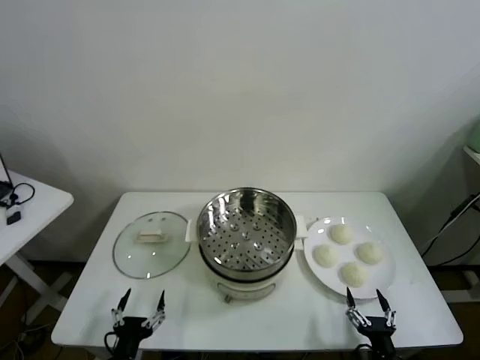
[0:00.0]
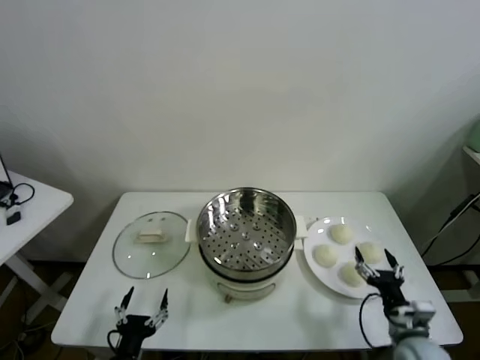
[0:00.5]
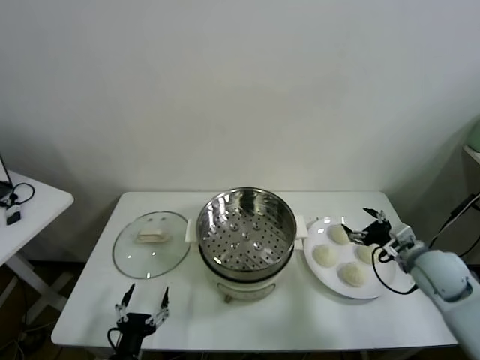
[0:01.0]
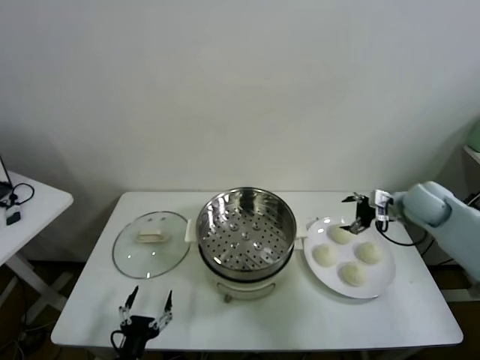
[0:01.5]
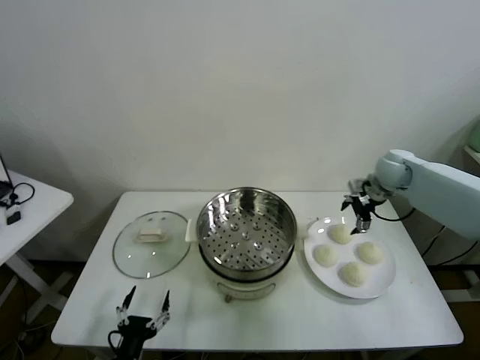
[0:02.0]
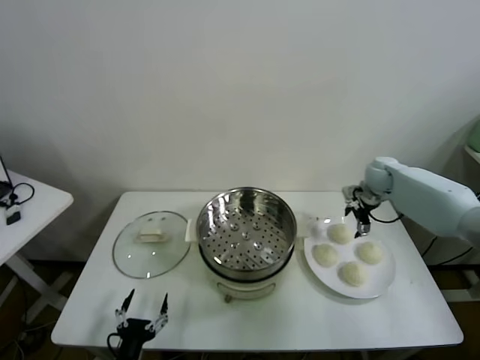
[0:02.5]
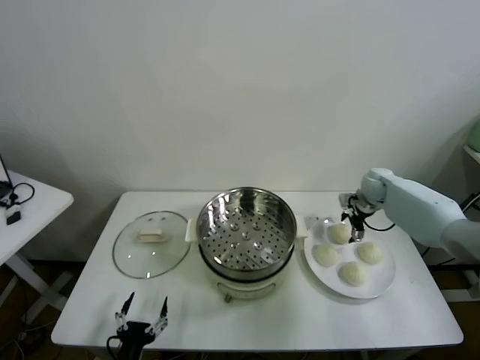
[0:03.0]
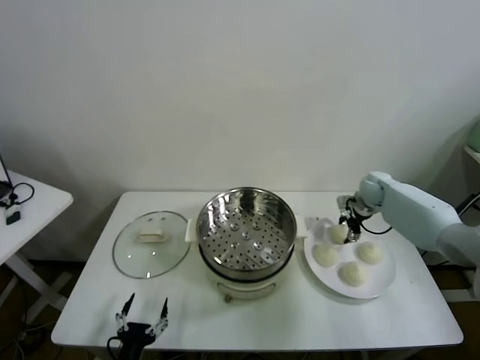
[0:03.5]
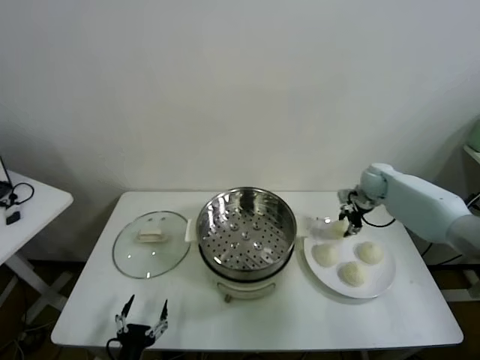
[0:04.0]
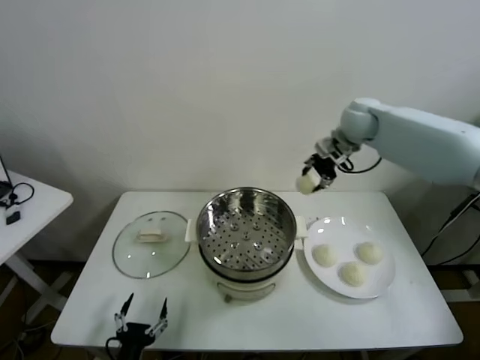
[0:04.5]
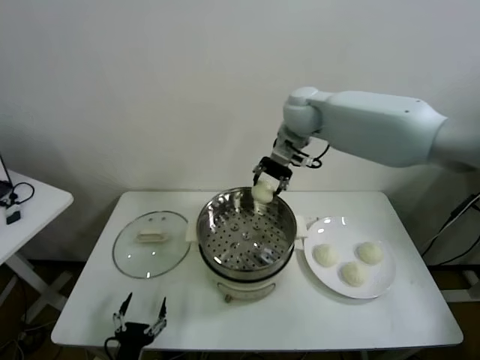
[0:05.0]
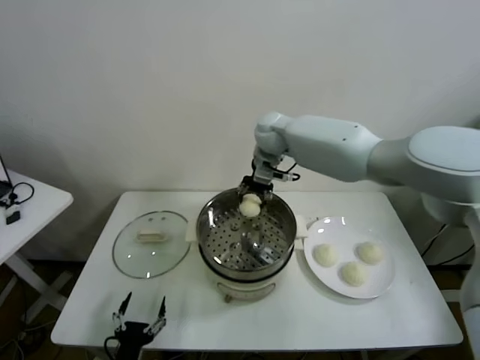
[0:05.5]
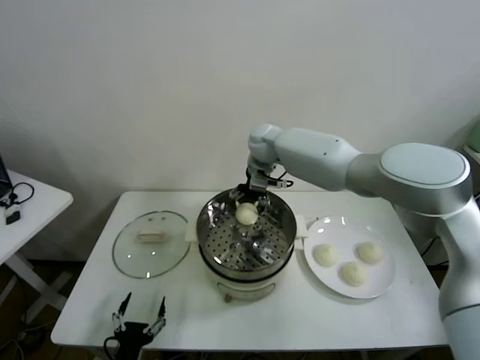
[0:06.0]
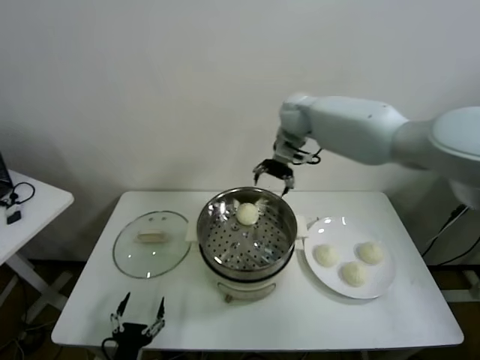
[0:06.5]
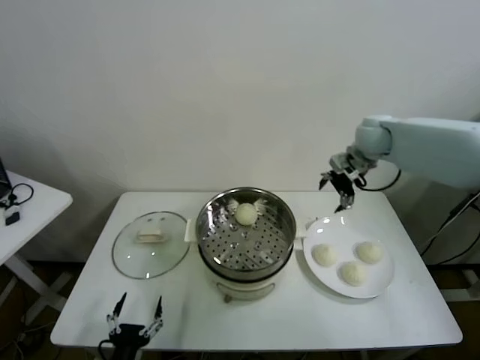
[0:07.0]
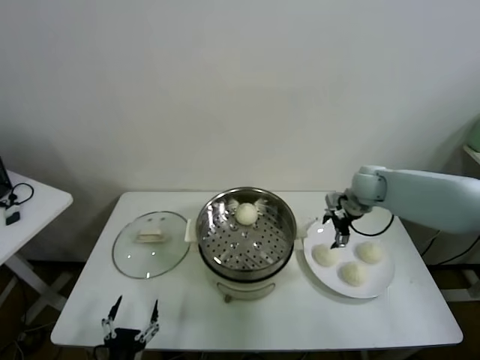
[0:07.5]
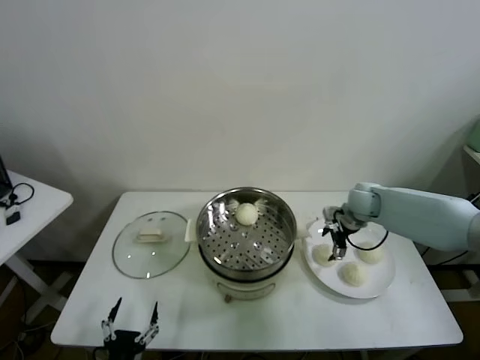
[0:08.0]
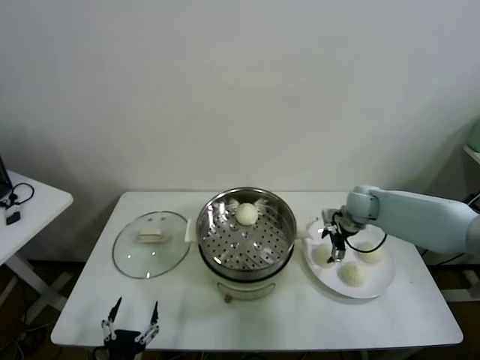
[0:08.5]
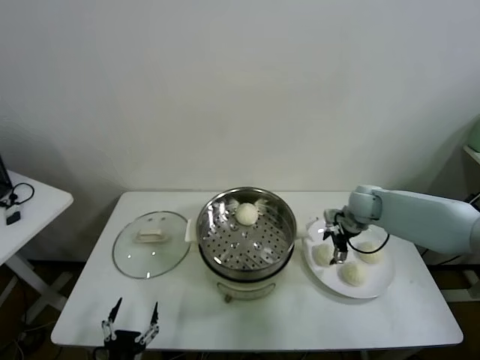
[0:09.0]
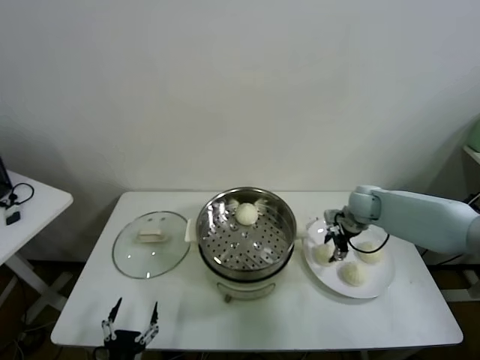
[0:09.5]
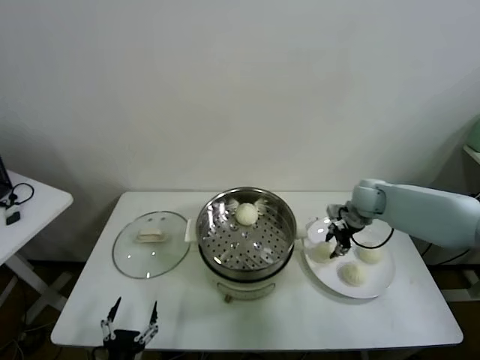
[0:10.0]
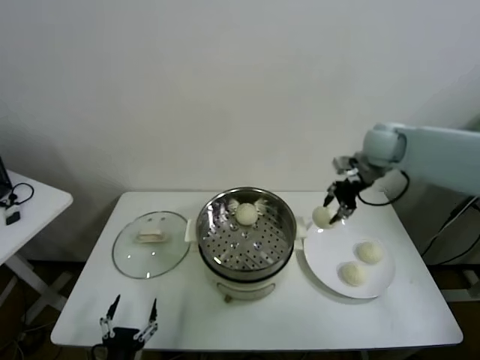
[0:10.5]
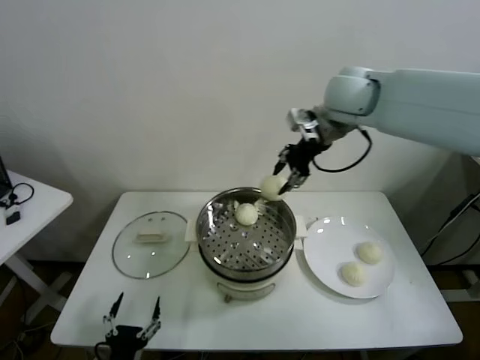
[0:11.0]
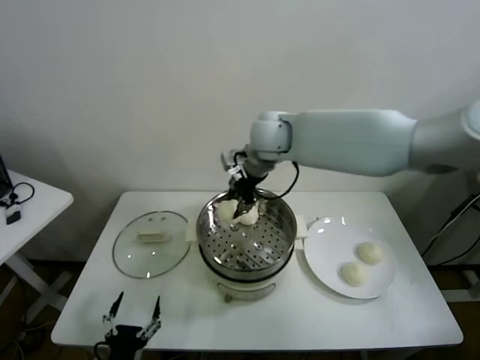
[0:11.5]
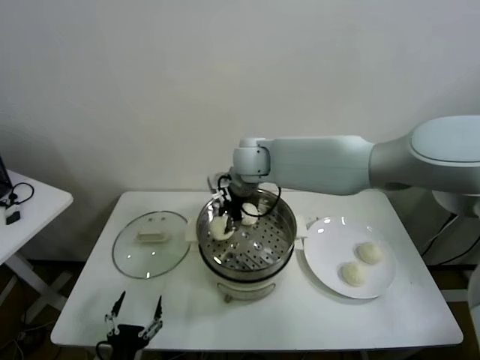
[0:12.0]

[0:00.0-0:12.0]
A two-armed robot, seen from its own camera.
Task of the whole recording: take steamed baozi put them in steamer.
Step, 0:00.0 to 0:03.5: Grasp the baozi in the plate with right gripper.
Step, 0:04.0 to 0:06.0: Place the baozi on the steamer with right gripper.
Step, 0:06.5 to 0:09.5: Grasp the baozi in the plate with right gripper.
0:02.0 to 0:04.0: The right gripper travels downward and back again, approximately 10 cm each way, and closes up.
0:04.0 to 0:06.0: The right gripper moves to the left, about 30 cm, and opens.
0:06.0 to 0:08.0: The right gripper travels to the right and downward by approximately 30 cm.
0:08.0 to 0:10.0: The right gripper closes up.
0:10.0 to 0:12.0: The right gripper moves to the left, approximately 30 cm.

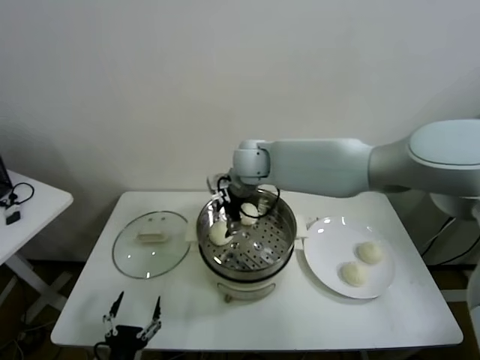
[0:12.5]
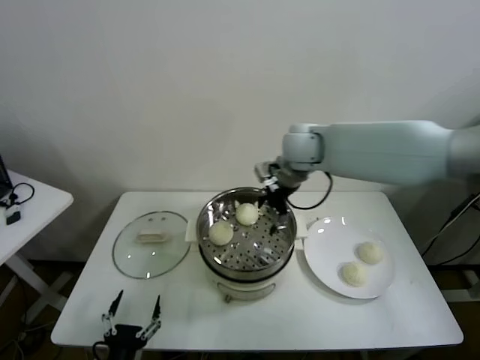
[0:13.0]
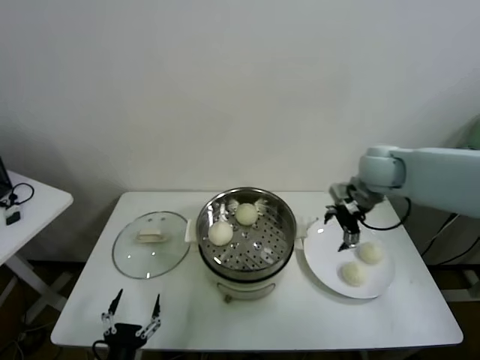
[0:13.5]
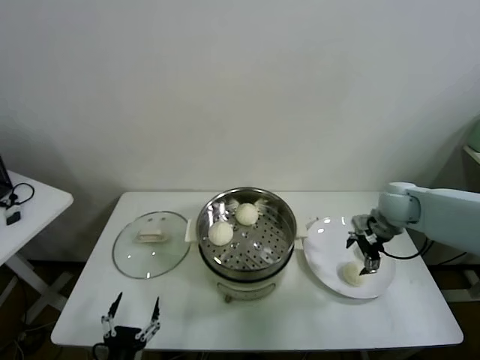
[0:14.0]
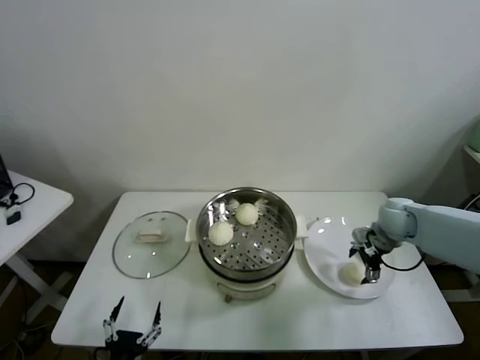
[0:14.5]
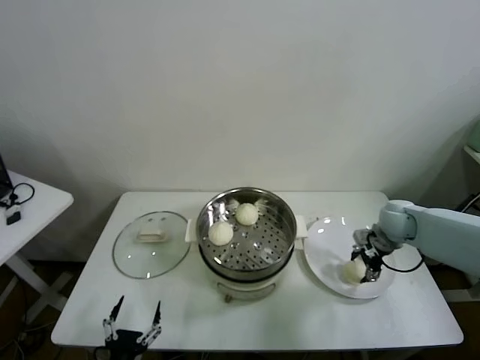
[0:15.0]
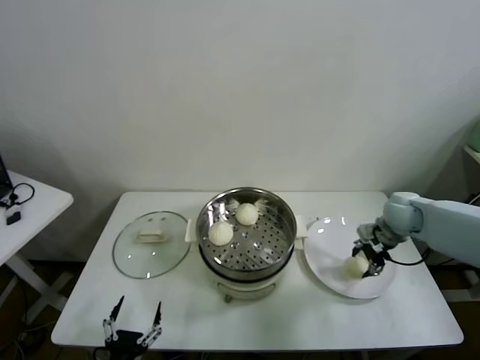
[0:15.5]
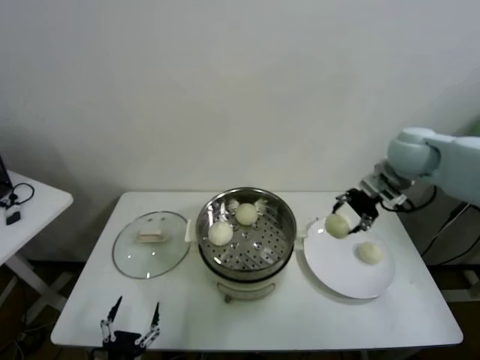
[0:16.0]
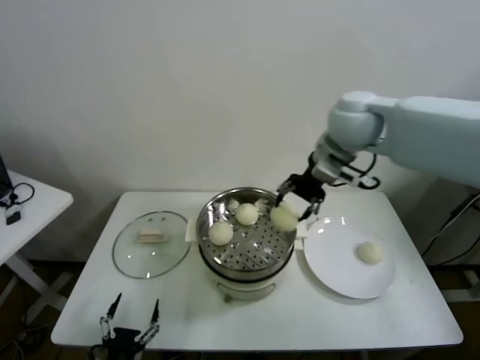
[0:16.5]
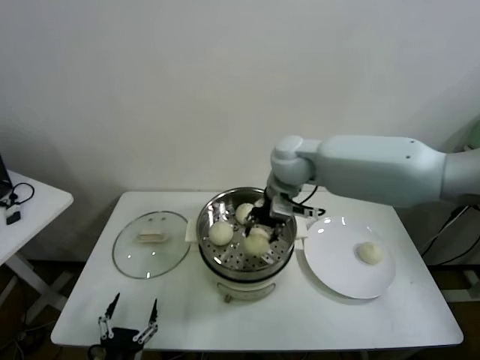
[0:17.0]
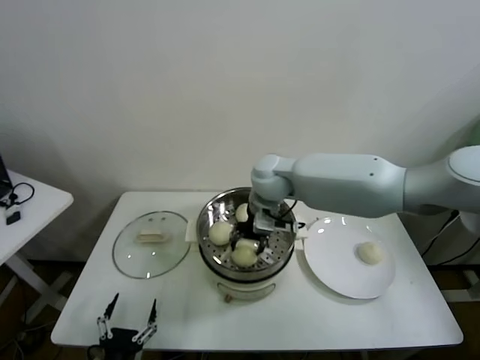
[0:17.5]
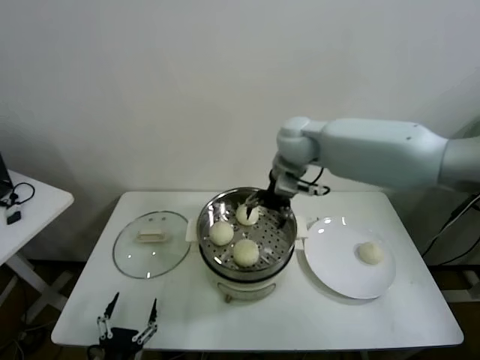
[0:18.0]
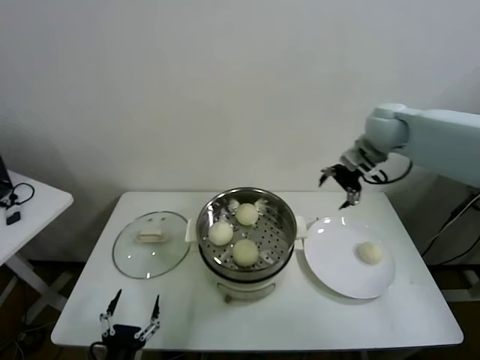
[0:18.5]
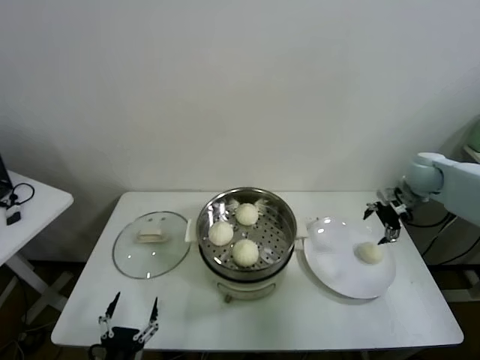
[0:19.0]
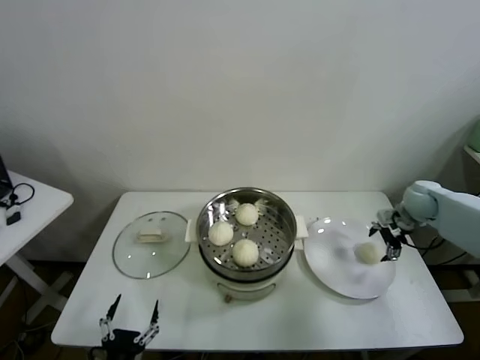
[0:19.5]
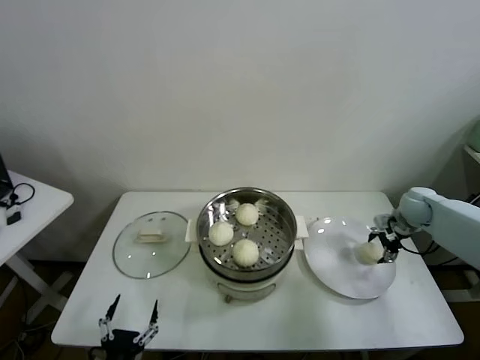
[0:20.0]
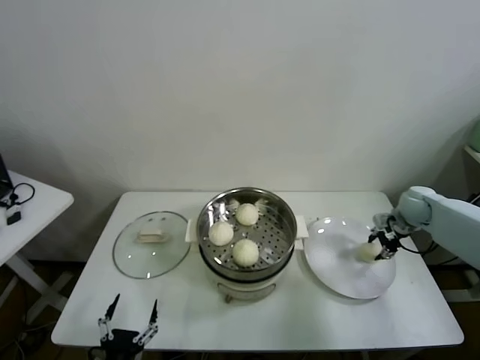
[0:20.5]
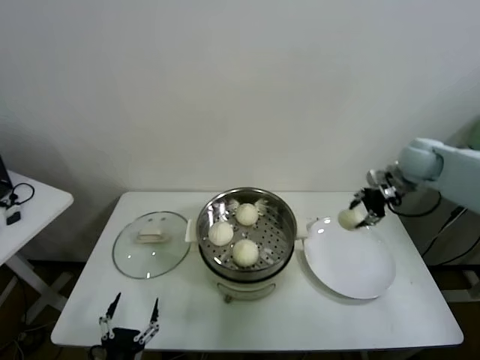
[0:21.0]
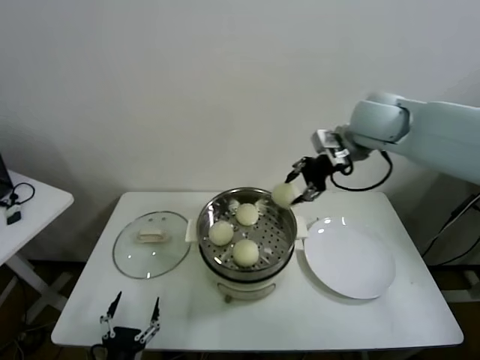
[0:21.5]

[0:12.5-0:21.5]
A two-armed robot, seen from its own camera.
Task of the whole recording: take steamed baozi put them in steamer.
Step, 0:12.5 to 0:15.0: Grasp the baozi in the plate with right gripper.
Step, 0:15.5 to 0:17.5: Place the baozi on the steamer with right gripper.
Step, 0:18.0 to 0:20.0: Grasp the baozi in the plate with right gripper.
0:12.5 to 0:14.5: The right gripper heads to the right and downward, covering approximately 40 cm.
0:14.5 to 0:17.0: The right gripper heads to the left and upward, covering some 30 cm, and closes up.
0:17.0 to 0:19.5: The right gripper moves to the right and downward, roughly 40 cm, and opens.
0:19.5 to 0:21.5: The right gripper shifts approximately 30 cm upward and to the left, and closes its fingers.

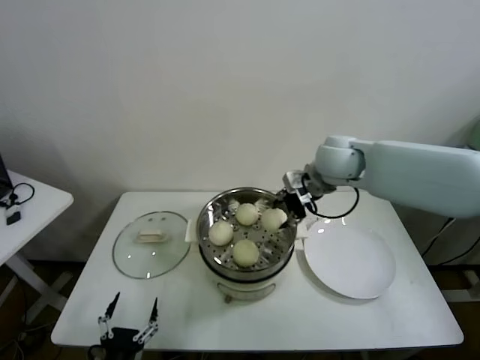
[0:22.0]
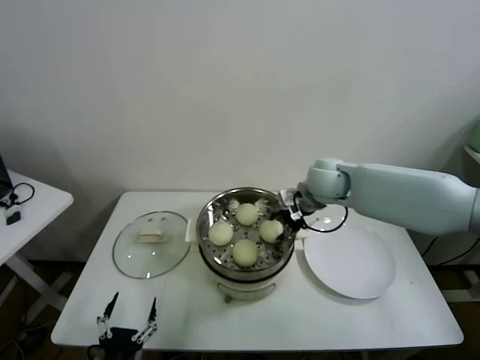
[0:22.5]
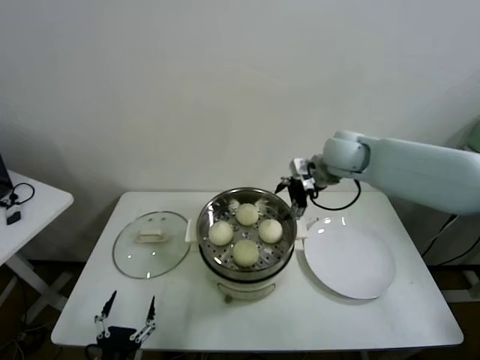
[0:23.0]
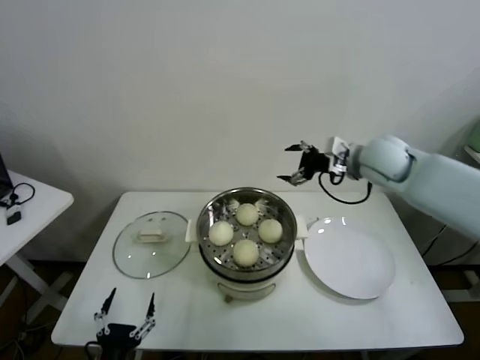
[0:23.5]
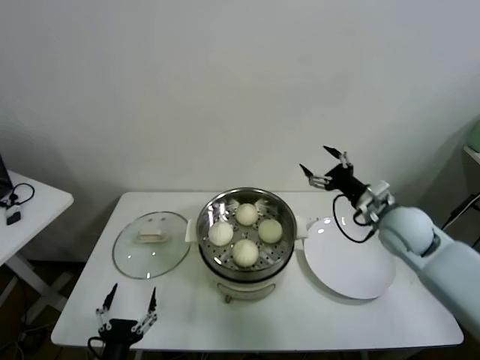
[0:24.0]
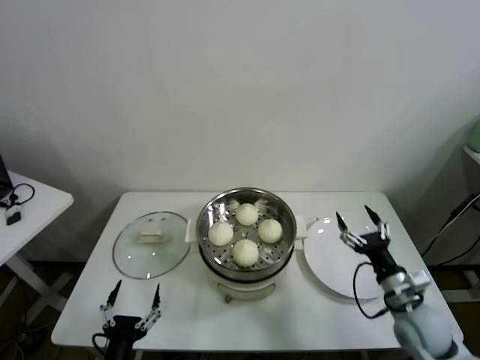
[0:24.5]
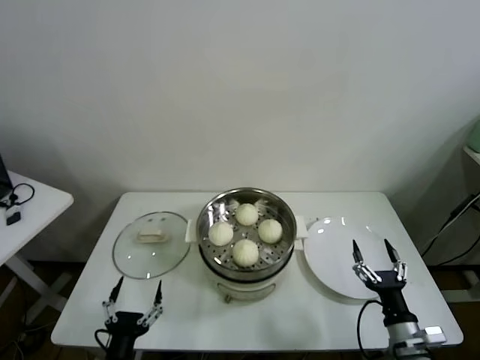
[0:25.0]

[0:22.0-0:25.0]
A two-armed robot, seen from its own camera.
Task of the whole recording: take steamed baozi put them in steamer.
0:22.0 to 0:23.5: The right gripper travels to the right by approximately 10 cm, and opens up.
0:23.5 to 0:25.0: The right gripper travels backward and downward by about 40 cm.
